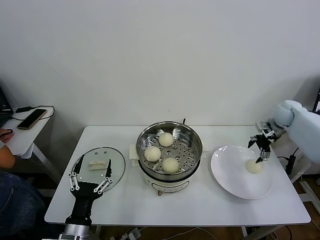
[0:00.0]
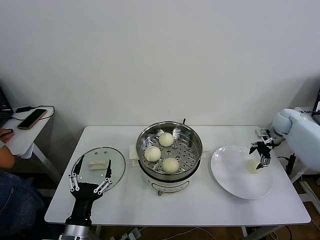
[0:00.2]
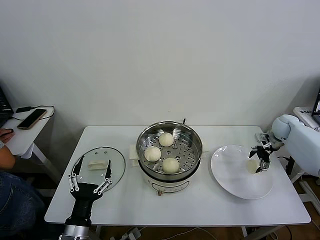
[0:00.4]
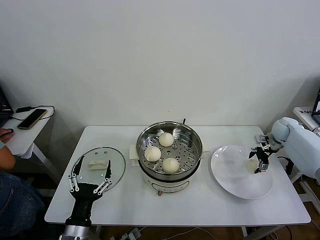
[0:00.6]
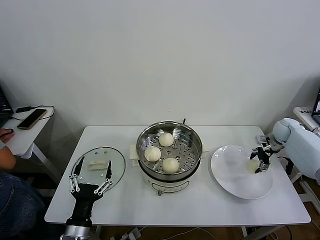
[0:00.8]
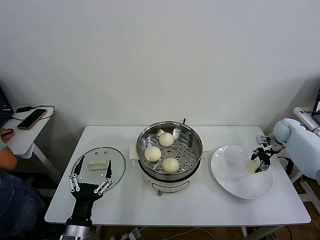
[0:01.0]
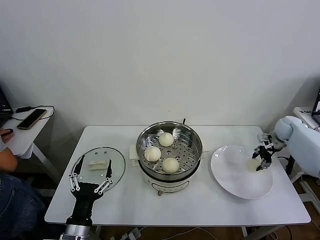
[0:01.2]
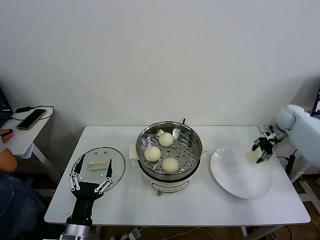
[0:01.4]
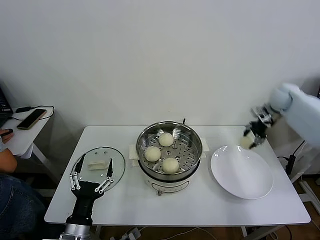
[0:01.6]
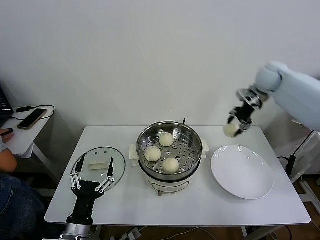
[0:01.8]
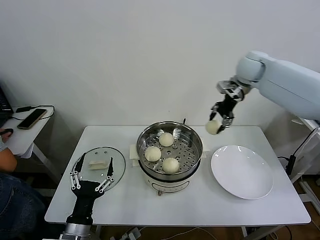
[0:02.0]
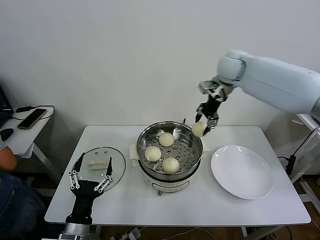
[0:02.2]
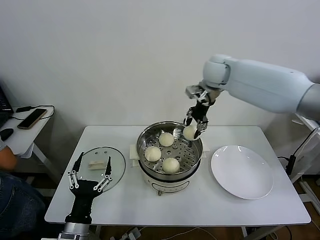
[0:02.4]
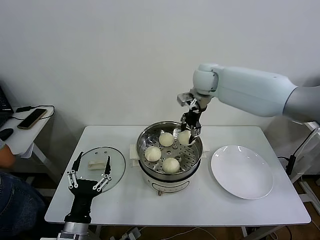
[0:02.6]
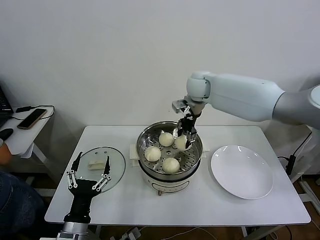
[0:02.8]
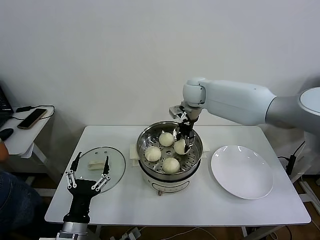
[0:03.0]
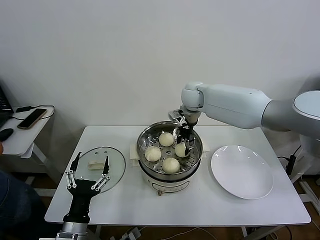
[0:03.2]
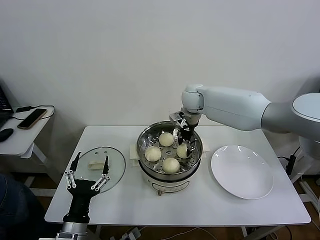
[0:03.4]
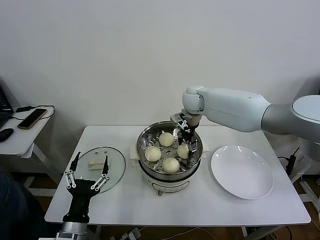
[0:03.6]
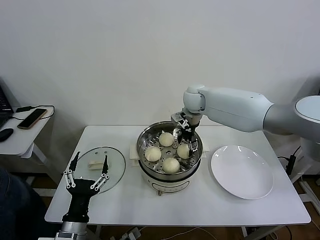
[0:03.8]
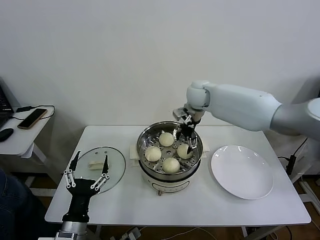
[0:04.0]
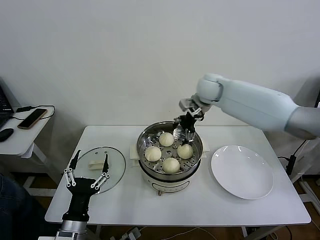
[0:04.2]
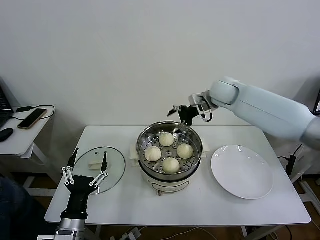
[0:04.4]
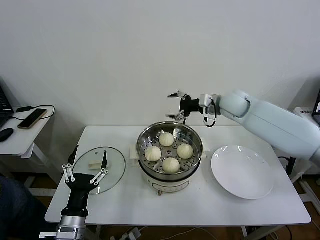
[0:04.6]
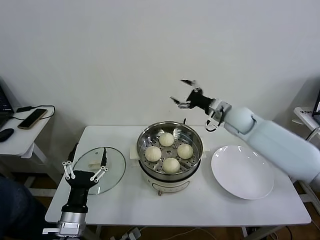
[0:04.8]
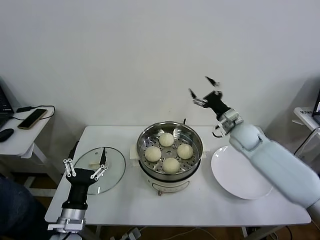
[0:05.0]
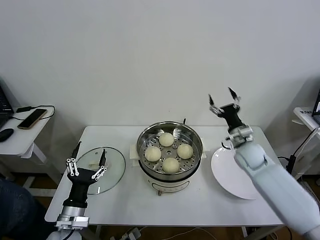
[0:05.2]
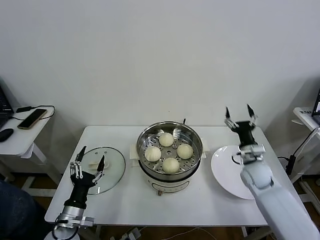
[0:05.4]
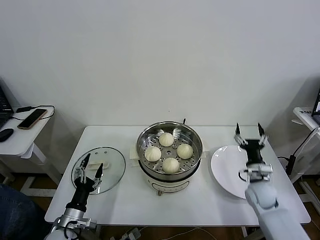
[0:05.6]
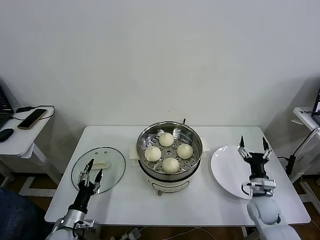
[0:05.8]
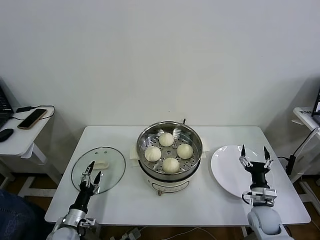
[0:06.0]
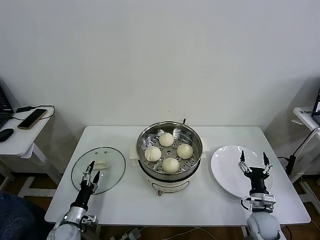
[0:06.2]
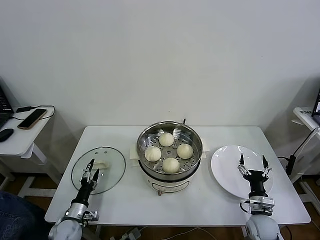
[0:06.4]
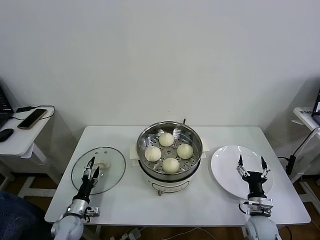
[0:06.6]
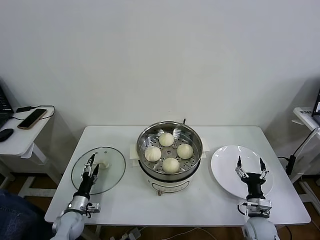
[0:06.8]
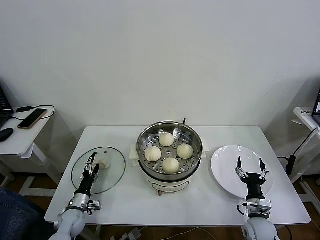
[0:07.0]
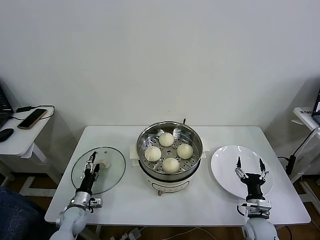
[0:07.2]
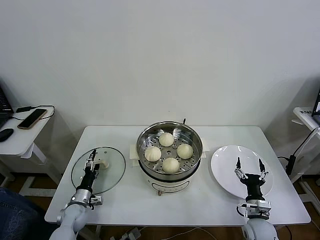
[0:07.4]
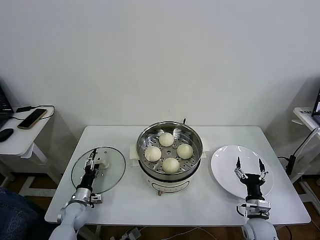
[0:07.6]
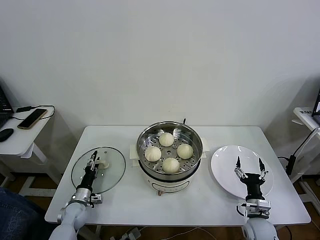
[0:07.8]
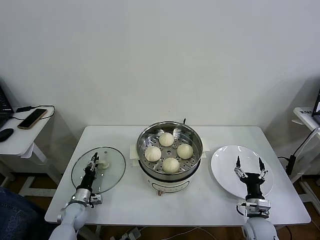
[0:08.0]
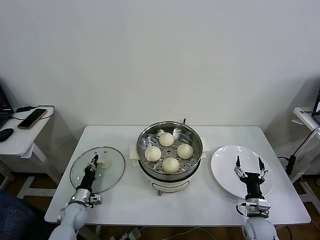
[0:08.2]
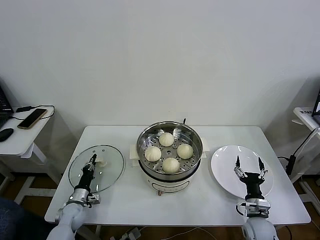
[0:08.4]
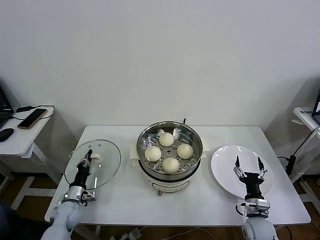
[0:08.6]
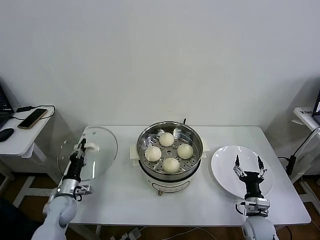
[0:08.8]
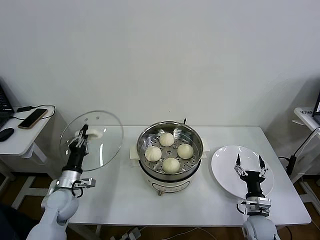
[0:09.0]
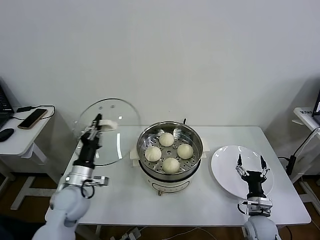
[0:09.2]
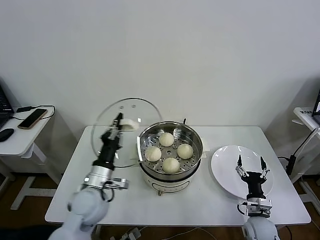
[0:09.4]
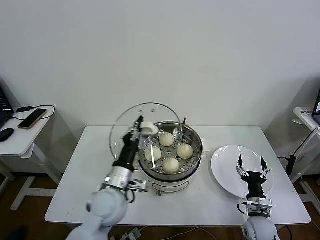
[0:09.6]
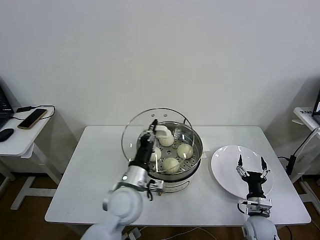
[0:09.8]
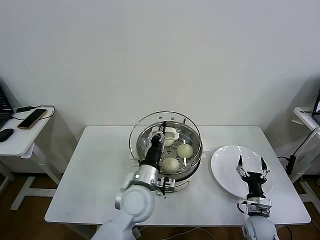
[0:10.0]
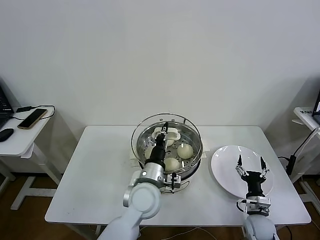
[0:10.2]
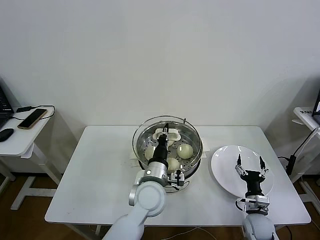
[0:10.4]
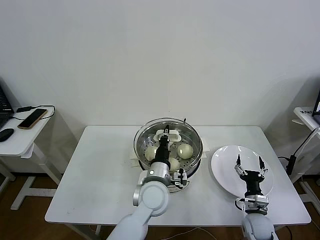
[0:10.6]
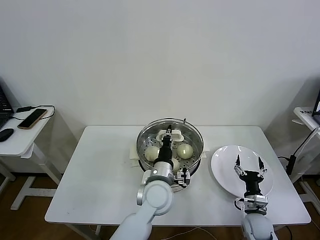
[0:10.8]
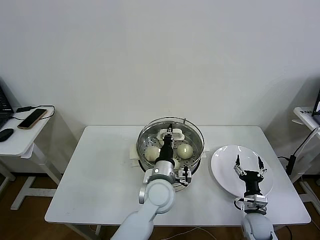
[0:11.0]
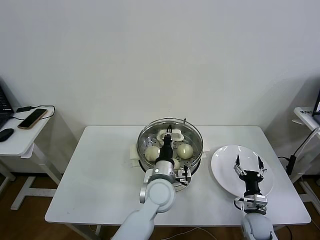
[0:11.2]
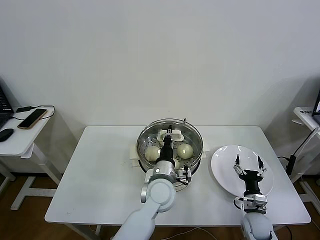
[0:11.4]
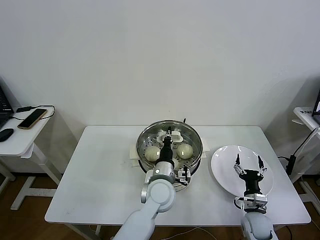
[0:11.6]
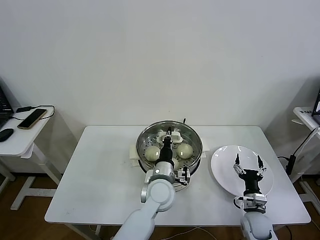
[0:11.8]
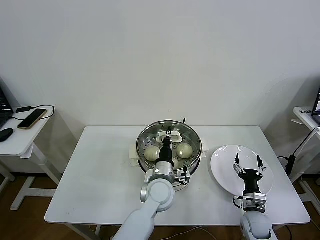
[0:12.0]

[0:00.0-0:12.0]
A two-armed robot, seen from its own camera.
Task of the whole recording: take steamed baozi put them in steamer then cover it.
Step, 0:01.4 to 0:03.6: Place the baozi on the steamer with right gripper.
Step, 0:03.8 to 0:08.4: Grasp the pot lid with left gripper.
0:00.0 to 0:01.6: The right gripper shifts approximately 10 cm upward, and closes.
0:01.6 to 0:03.0: The right gripper travels to the left by some 30 cm.
0:03.0 to 0:04.4: The right gripper travels to the right by approximately 10 cm, and opens its fingers.
0:04.4 to 0:06.0: The right gripper goes about 50 cm downward, backward and to the right, while the left gripper heads downward, to the left and forward, covering approximately 20 cm.
0:06.0 to 0:07.6: The left gripper goes some 10 cm forward.
0:07.6 to 0:09.0: The left gripper moves upward, roughly 15 cm, and closes its fingers.
0:09.0 to 0:10.4: The left gripper heads to the right, covering some 30 cm.
0:10.4 to 0:12.0: The left gripper moves roughly 5 cm.

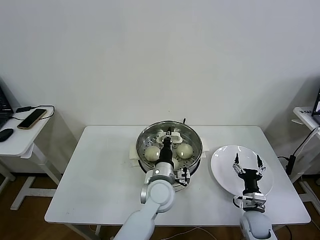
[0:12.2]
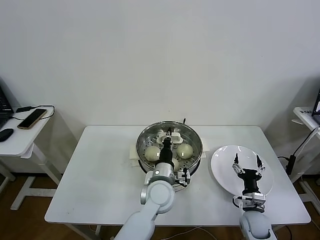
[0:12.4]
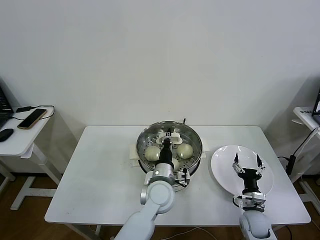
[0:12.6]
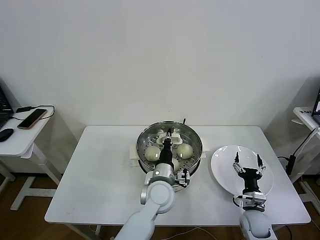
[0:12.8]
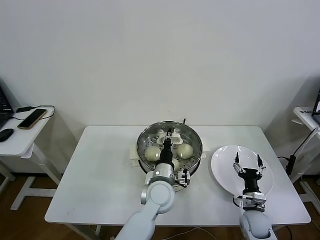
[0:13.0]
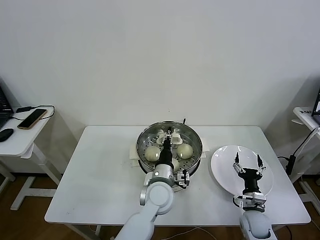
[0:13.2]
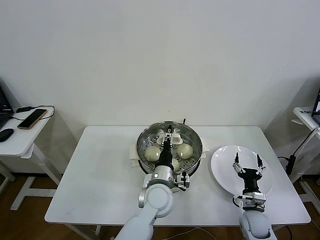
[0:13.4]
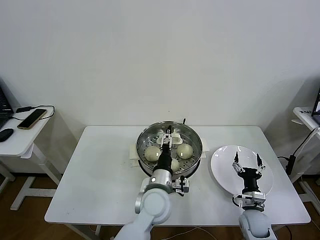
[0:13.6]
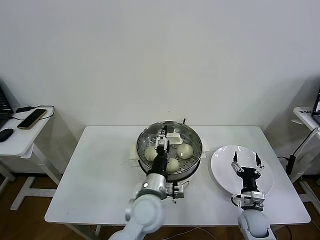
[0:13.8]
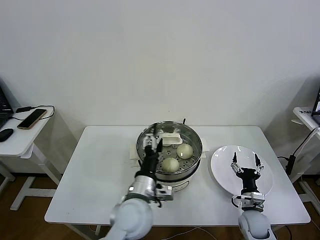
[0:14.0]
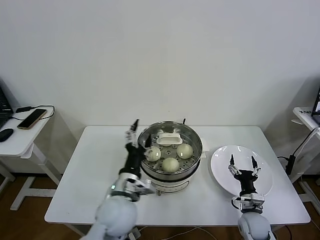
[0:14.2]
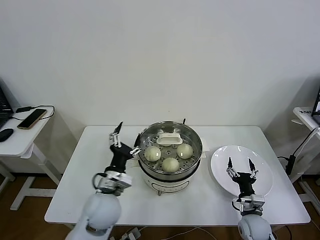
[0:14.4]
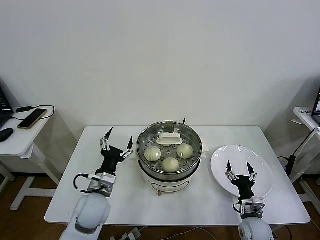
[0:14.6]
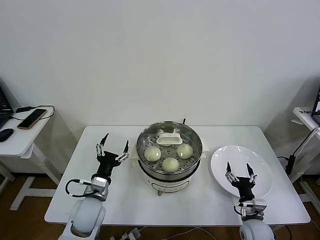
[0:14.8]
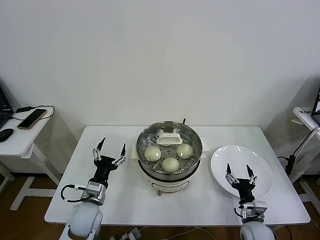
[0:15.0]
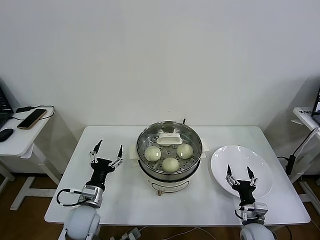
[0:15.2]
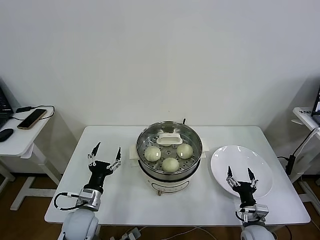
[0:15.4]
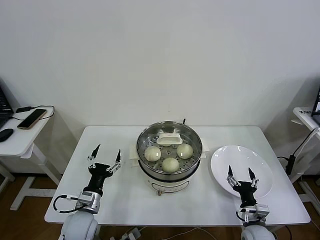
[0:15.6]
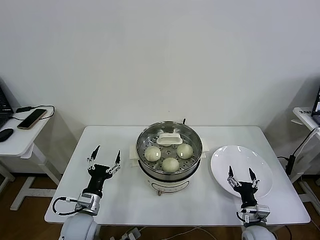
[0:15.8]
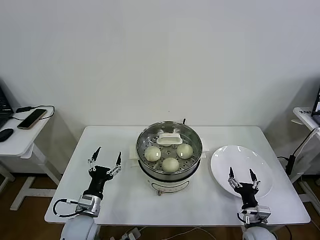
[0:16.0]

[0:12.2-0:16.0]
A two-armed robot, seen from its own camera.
Task of the whole recording: take steamed baozi put them in steamer then cover it.
0:12.2 to 0:13.4: The left gripper opens up.
0:13.4 to 0:14.8: The left gripper goes some 20 cm to the left, and opens up.
0:14.8 to 0:16.0: The left gripper moves approximately 5 cm.
